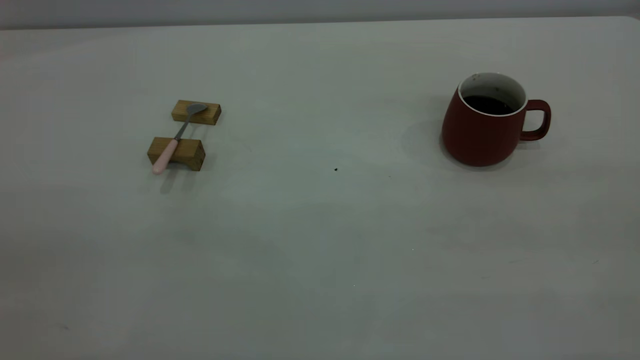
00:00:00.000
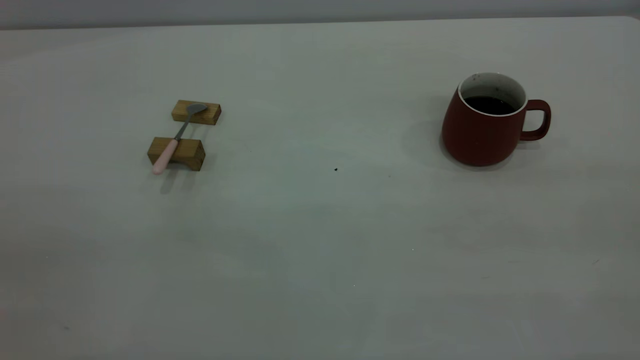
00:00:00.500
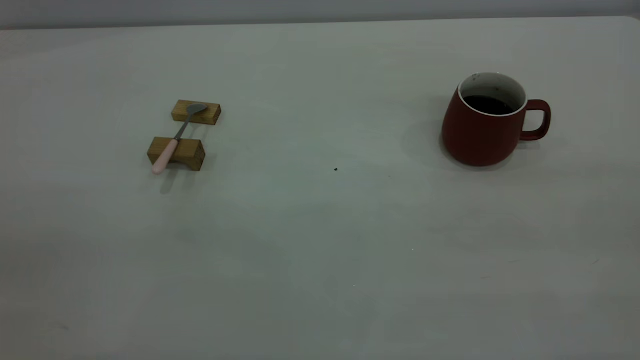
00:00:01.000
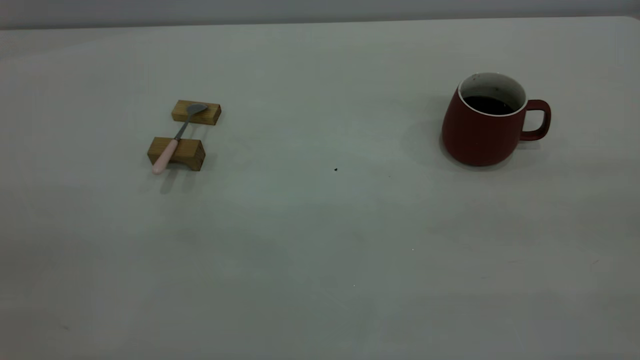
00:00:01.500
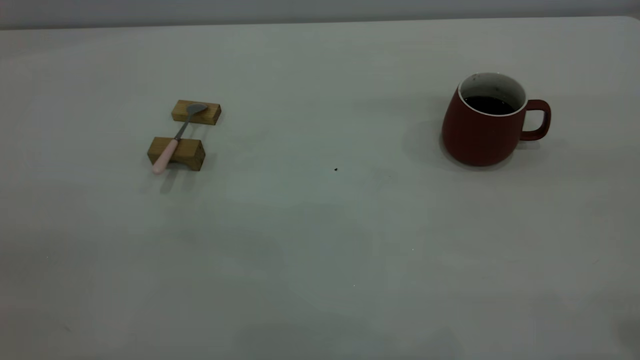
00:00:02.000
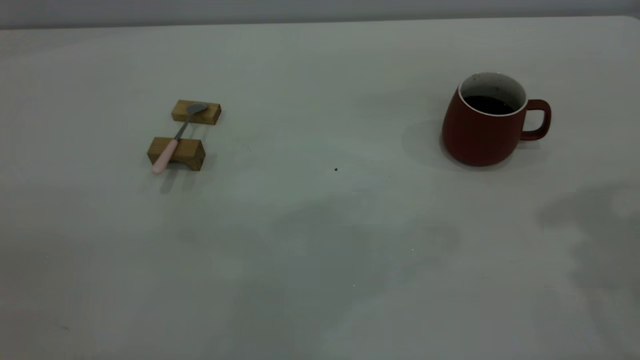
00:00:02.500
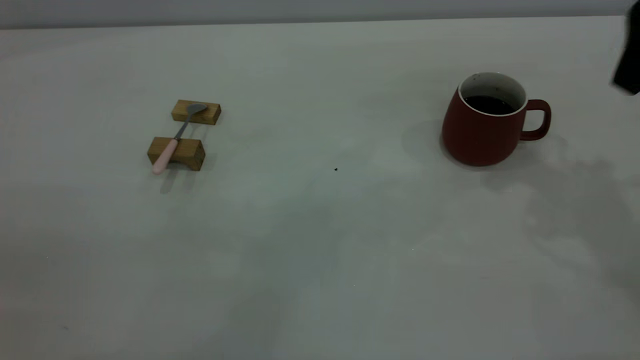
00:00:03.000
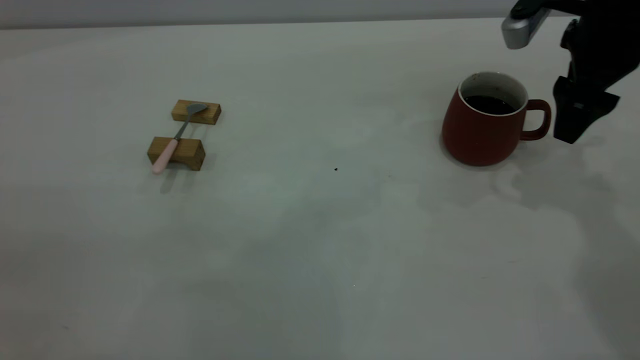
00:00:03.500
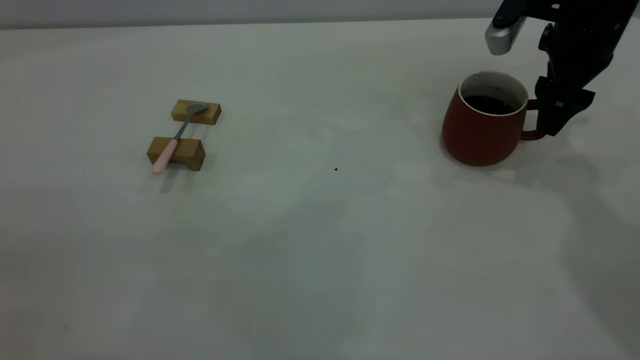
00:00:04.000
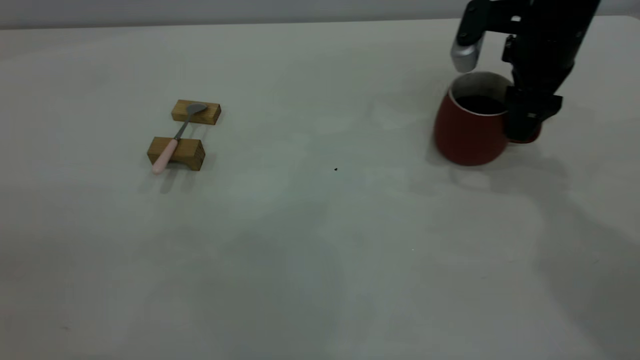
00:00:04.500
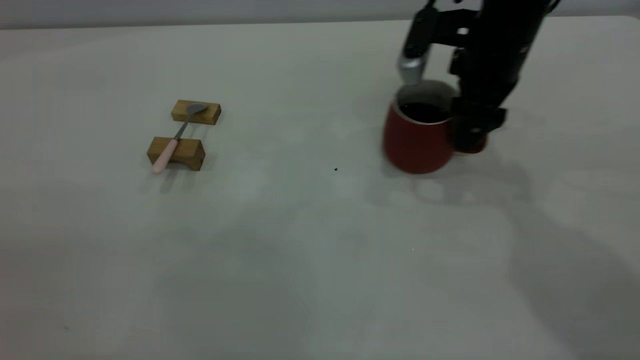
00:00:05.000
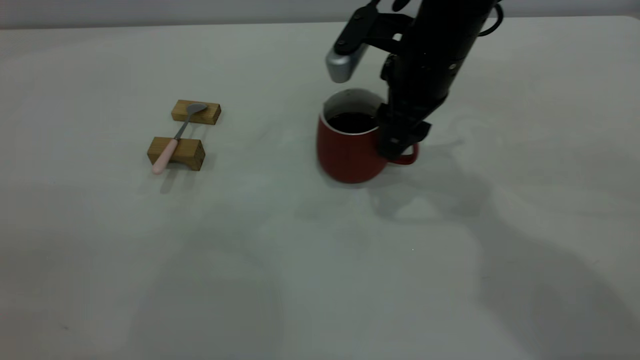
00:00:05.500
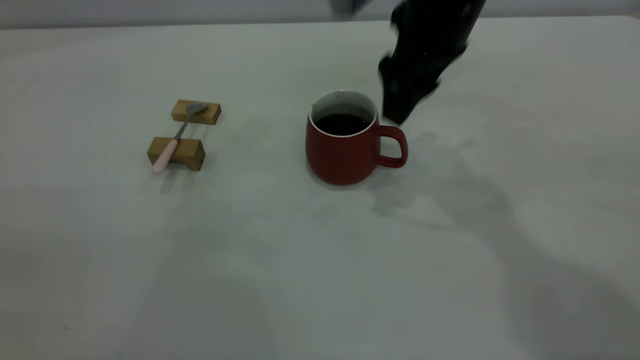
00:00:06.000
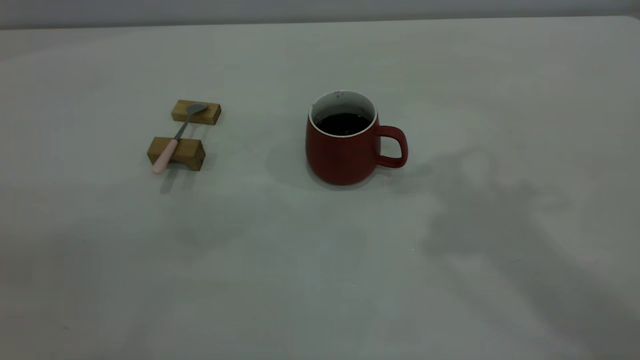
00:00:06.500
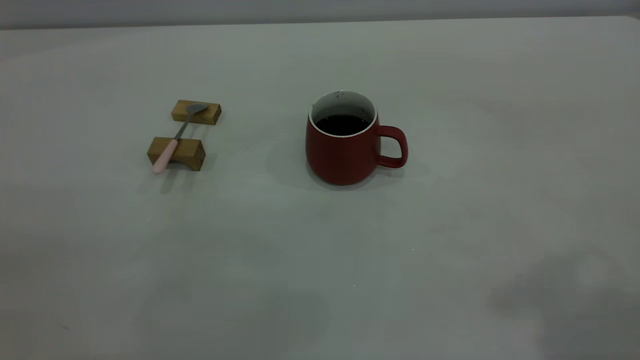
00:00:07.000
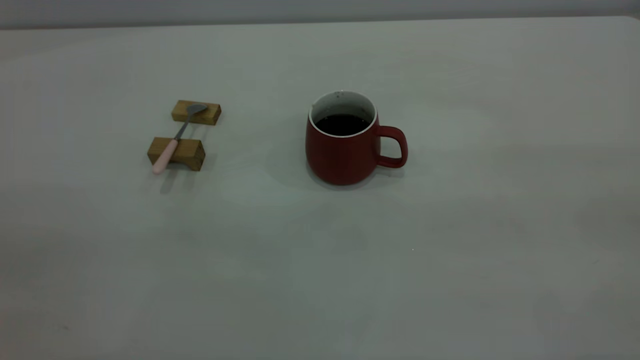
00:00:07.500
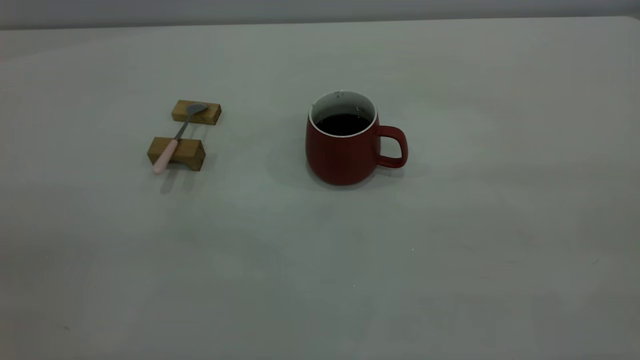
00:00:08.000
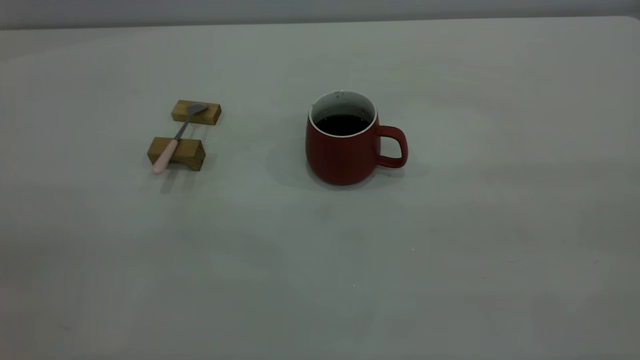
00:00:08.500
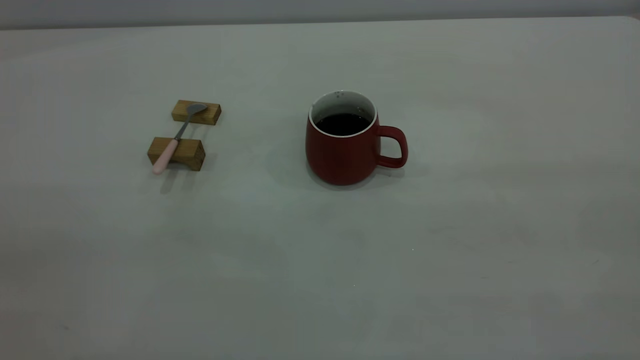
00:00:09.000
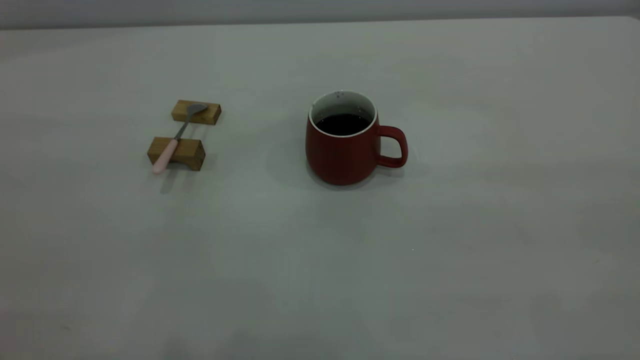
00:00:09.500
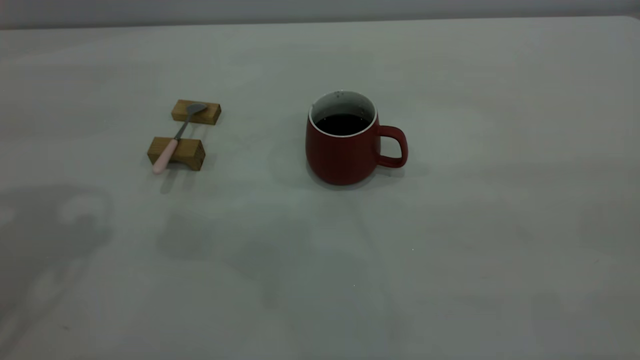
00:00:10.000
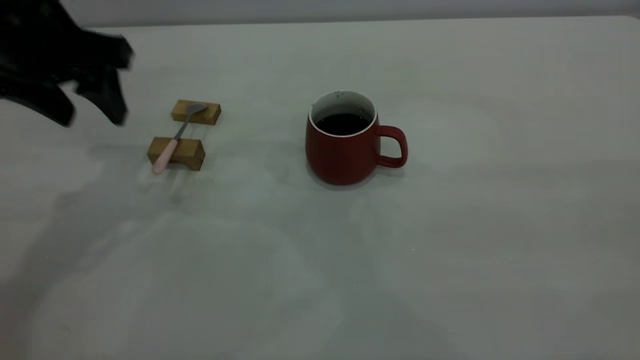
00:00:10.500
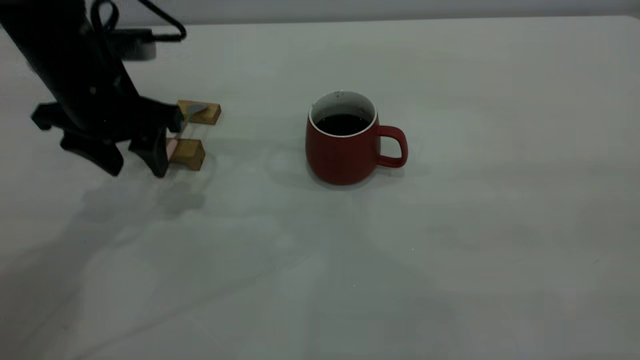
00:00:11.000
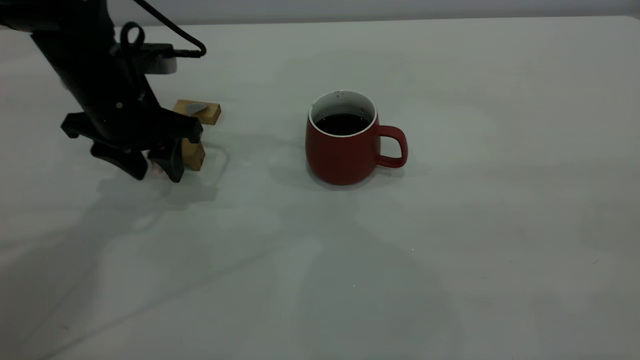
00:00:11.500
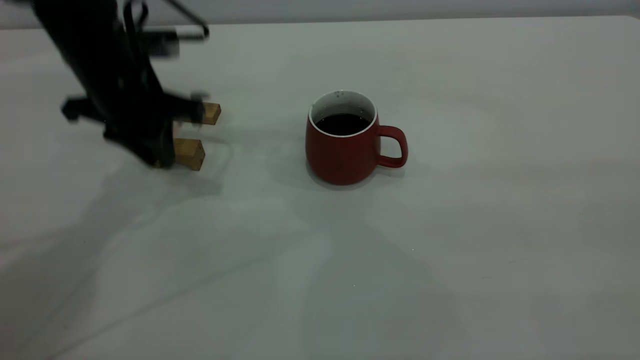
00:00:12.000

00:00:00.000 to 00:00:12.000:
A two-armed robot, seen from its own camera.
Step, 00:00:00.000 to 00:00:06.000: Move the cup with coffee to the center of view.
00:00:02.000 to 00:00:04.000: The right gripper travels forward and downward by approximately 40 cm, and opens up.
00:00:04.000 to 00:00:06.000: The right gripper is displaced to the left and upward by approximately 15 cm, and closes.
00:00:06.000 to 00:00:08.000: The right gripper goes roughly 40 cm backward and to the right.
00:00:10.000 to 00:00:12.000: The left gripper is displaced downward, forward and to the right by about 20 cm, and closes its fingers.

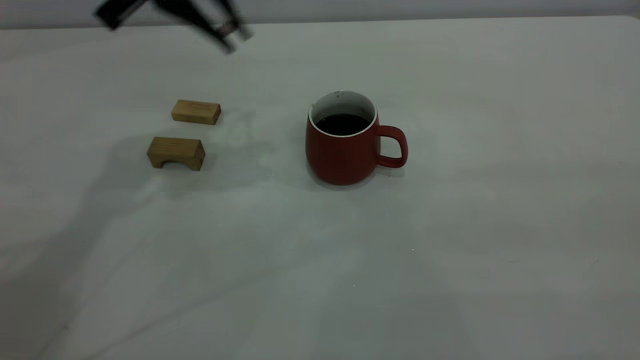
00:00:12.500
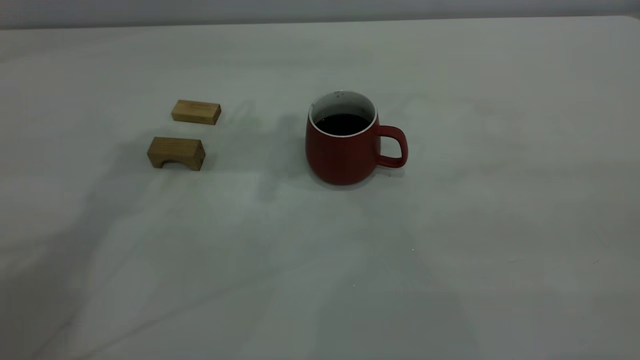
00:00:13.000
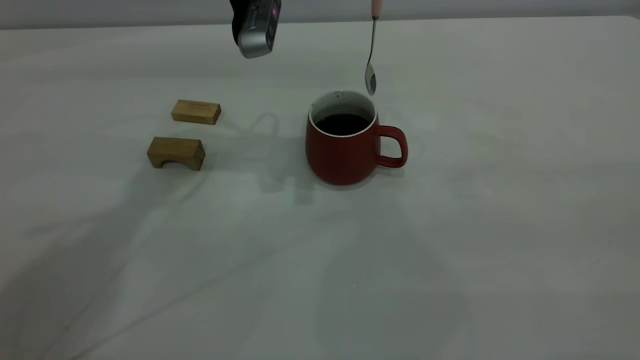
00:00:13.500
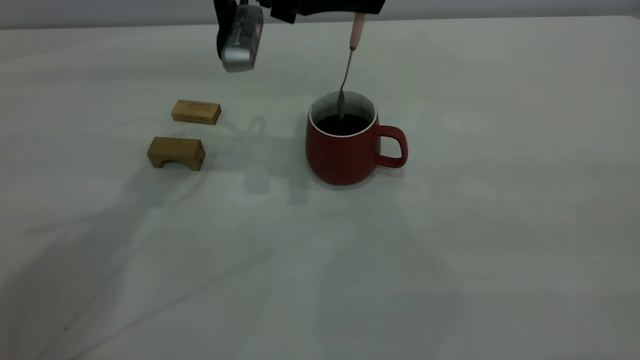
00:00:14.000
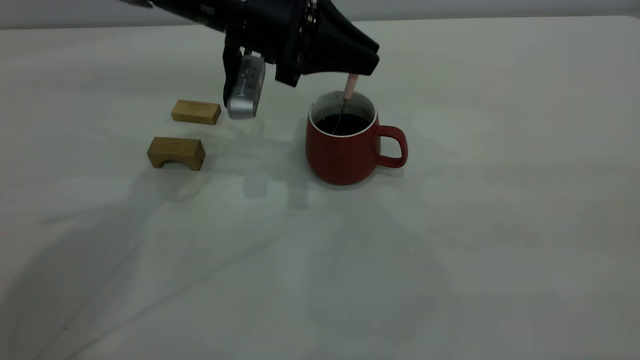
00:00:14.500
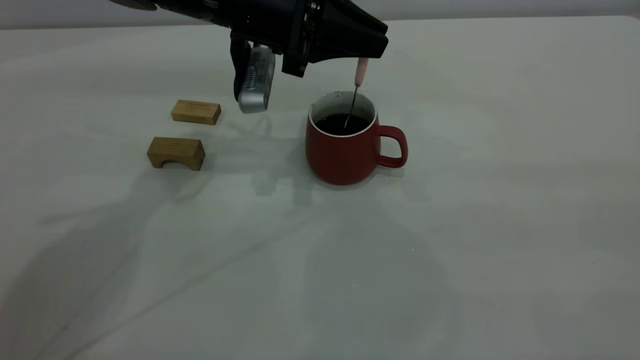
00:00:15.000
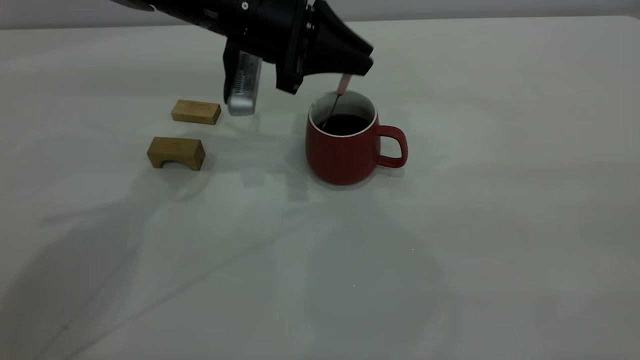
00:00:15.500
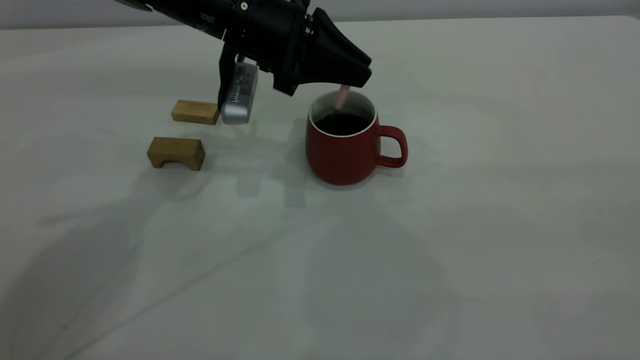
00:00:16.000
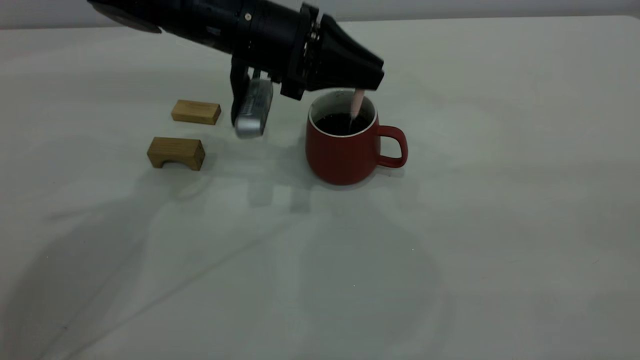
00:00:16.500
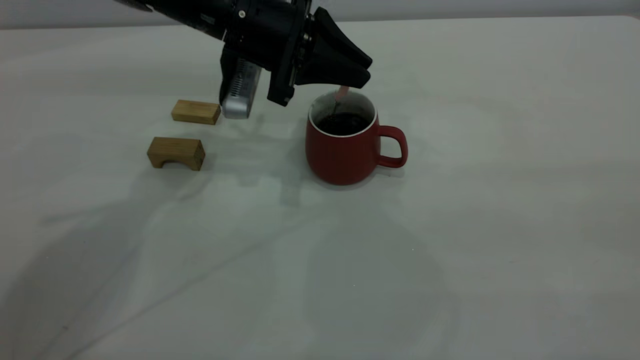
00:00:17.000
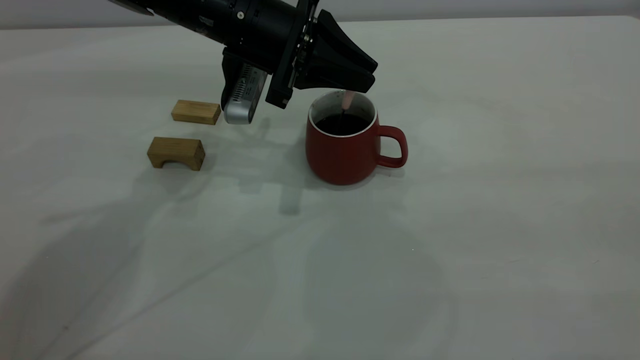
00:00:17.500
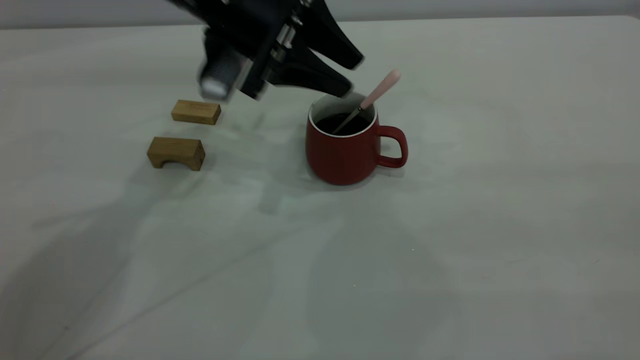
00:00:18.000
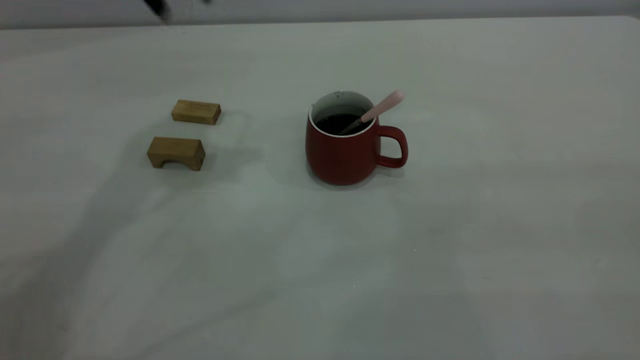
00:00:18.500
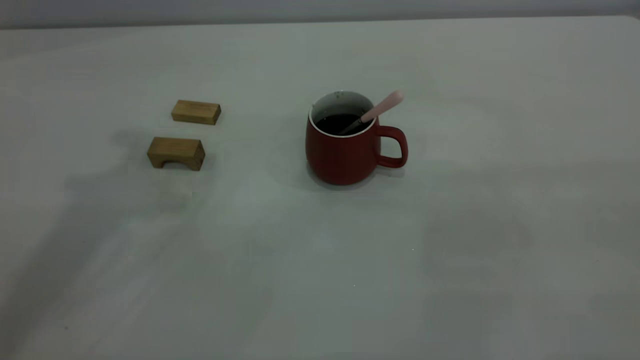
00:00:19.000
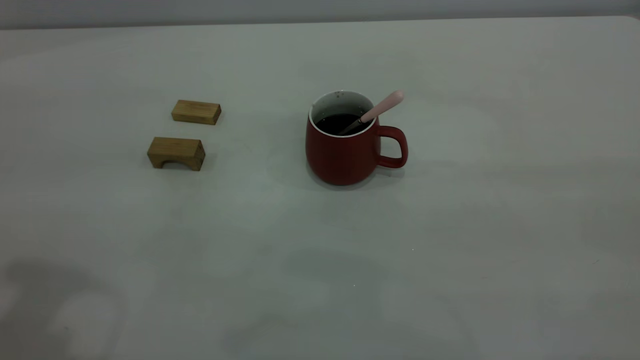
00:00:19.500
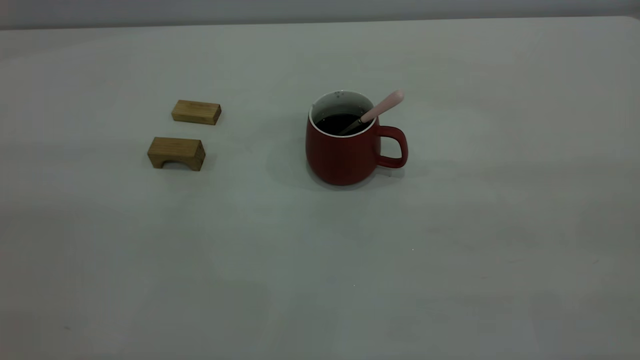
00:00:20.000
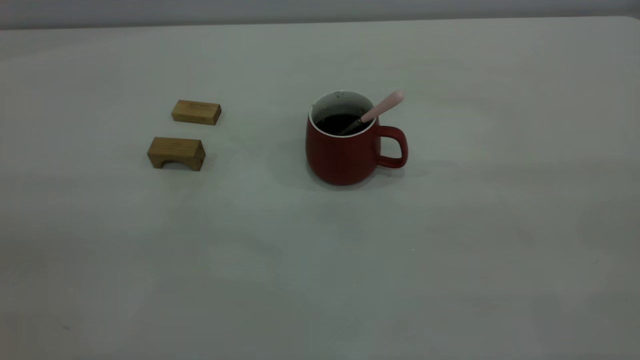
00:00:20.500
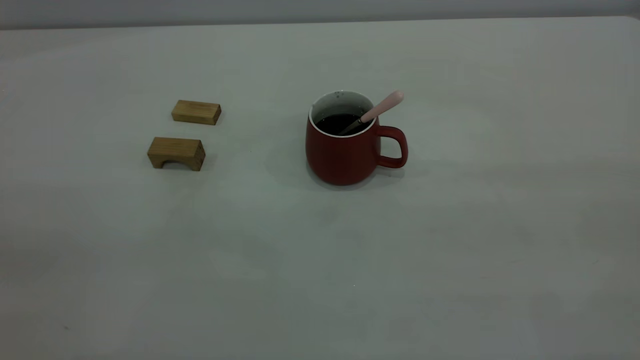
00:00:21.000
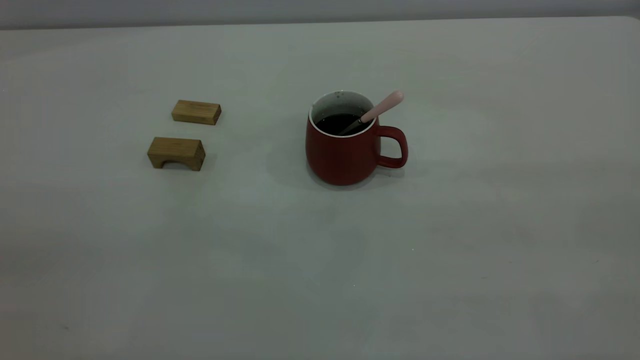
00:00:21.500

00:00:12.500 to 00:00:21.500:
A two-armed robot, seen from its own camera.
Step, 00:00:12.500 to 00:00:18.000: Stir the coffee in the cup.
00:00:12.500 to 00:00:14.500: The left gripper travels downward and to the right by roughly 10 cm.
00:00:14.500 to 00:00:17.000: The grippers make only small movements.
00:00:17.000 to 00:00:19.500: The left gripper travels backward, upward and to the left by approximately 40 cm, and opens its fingers.
